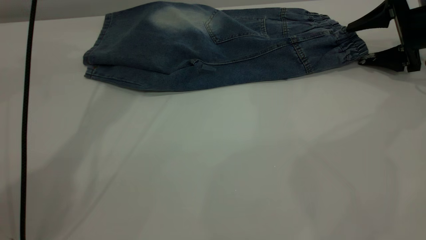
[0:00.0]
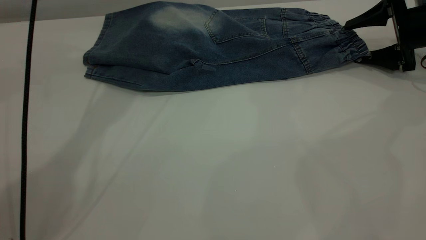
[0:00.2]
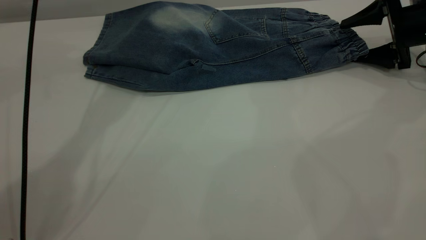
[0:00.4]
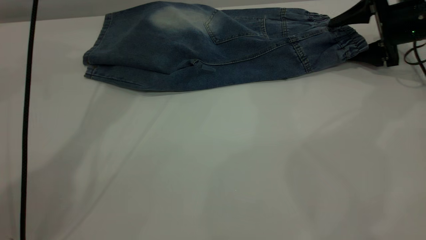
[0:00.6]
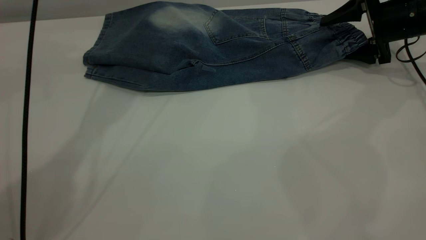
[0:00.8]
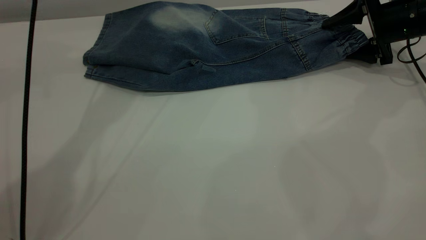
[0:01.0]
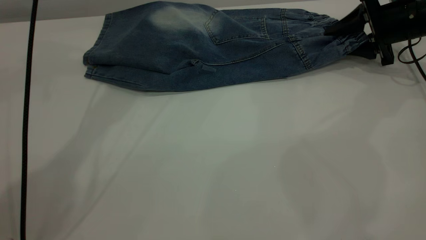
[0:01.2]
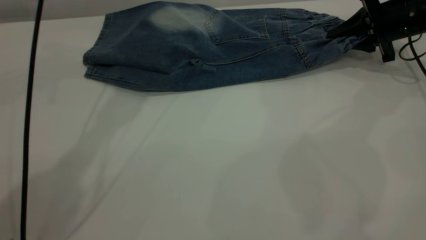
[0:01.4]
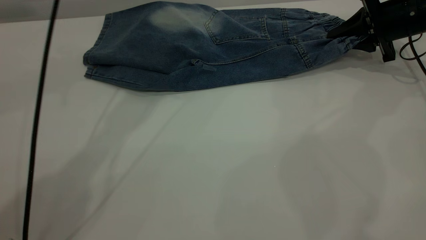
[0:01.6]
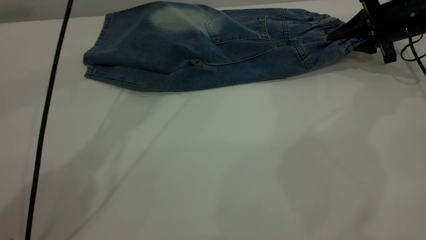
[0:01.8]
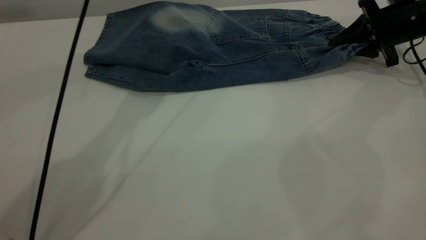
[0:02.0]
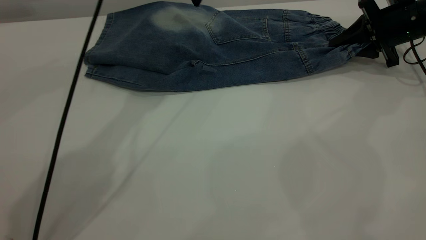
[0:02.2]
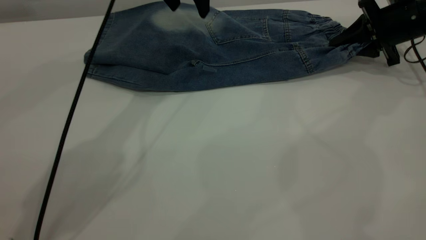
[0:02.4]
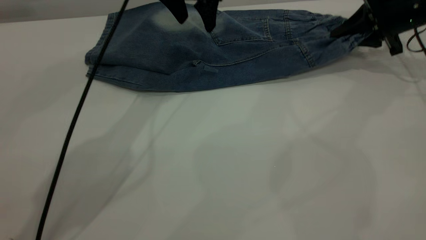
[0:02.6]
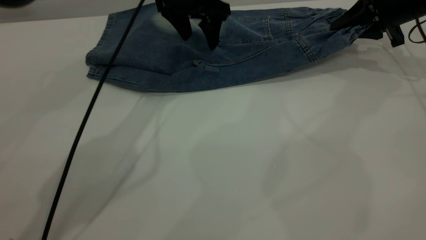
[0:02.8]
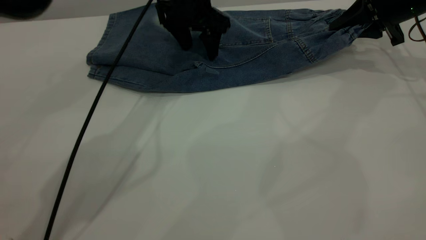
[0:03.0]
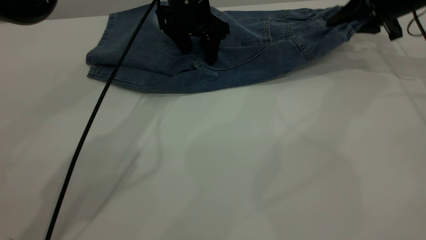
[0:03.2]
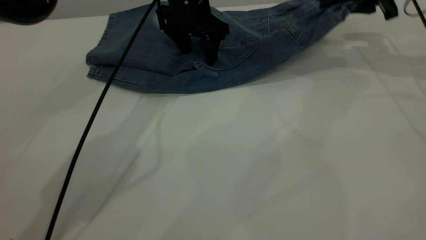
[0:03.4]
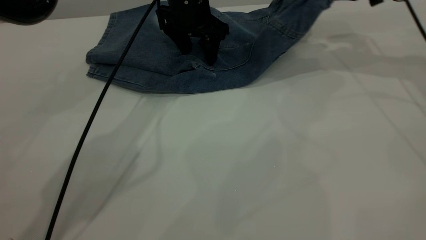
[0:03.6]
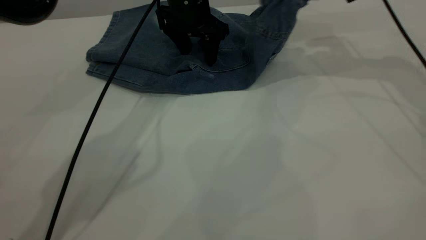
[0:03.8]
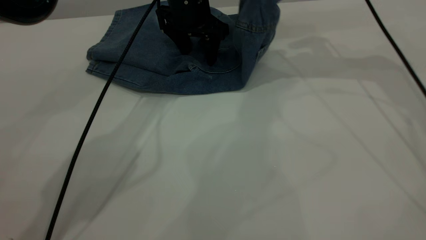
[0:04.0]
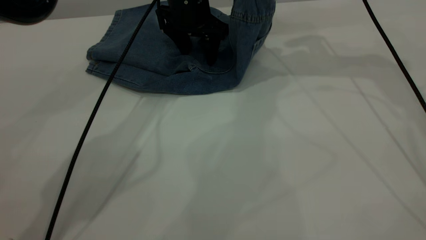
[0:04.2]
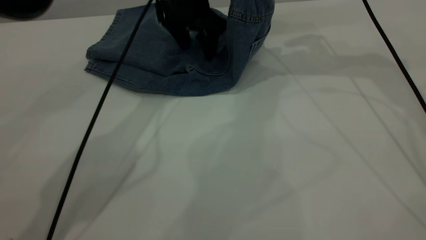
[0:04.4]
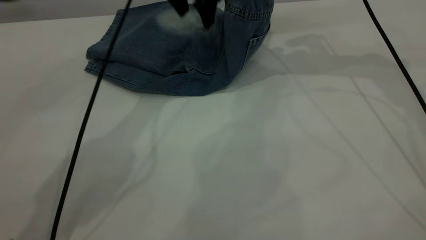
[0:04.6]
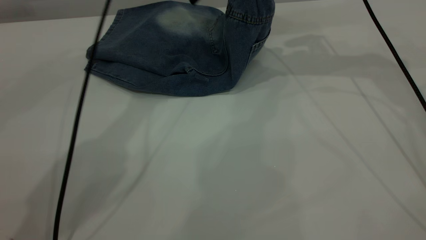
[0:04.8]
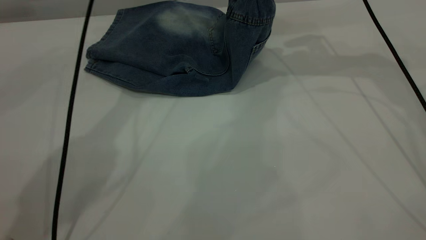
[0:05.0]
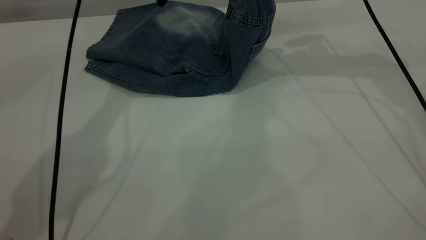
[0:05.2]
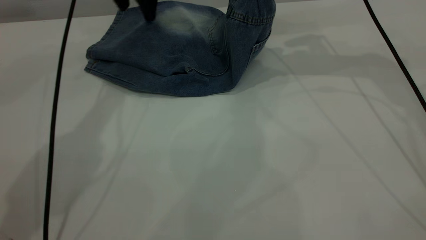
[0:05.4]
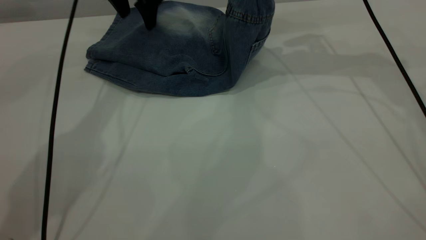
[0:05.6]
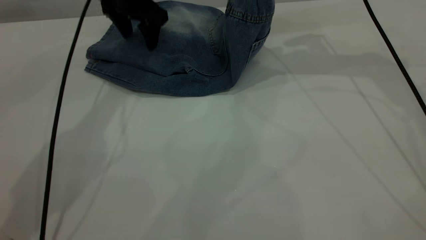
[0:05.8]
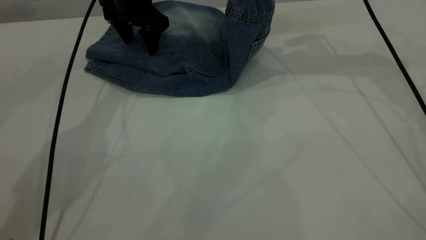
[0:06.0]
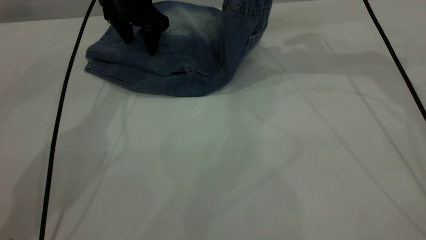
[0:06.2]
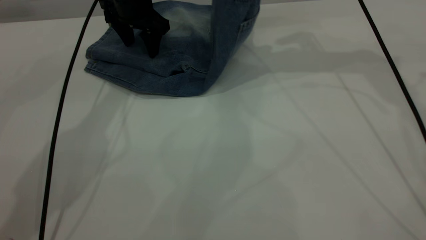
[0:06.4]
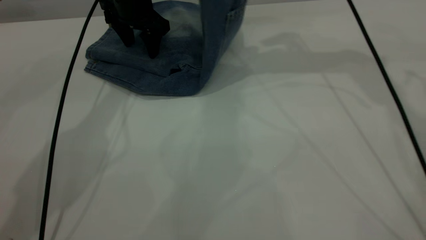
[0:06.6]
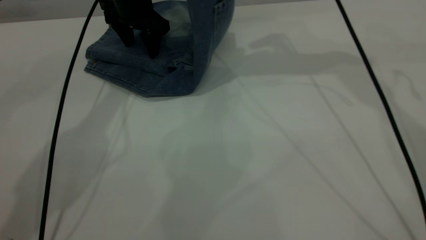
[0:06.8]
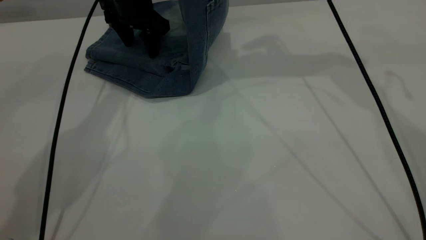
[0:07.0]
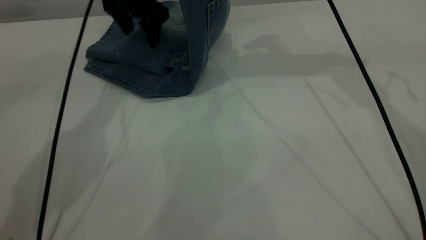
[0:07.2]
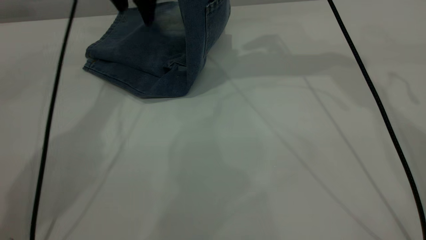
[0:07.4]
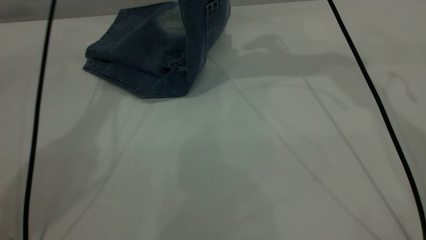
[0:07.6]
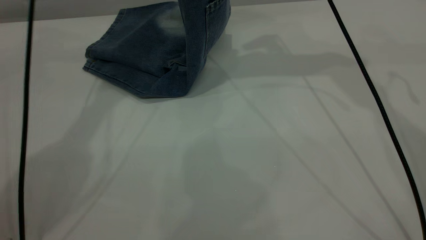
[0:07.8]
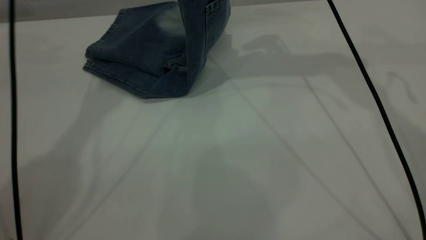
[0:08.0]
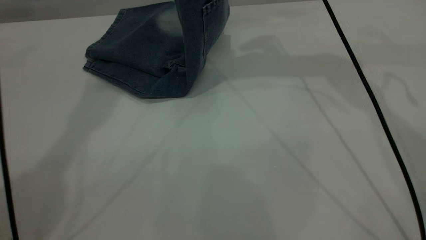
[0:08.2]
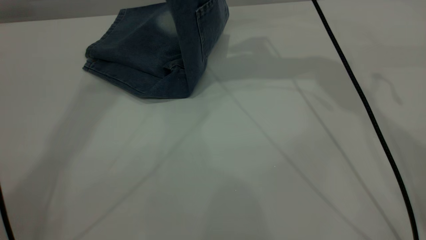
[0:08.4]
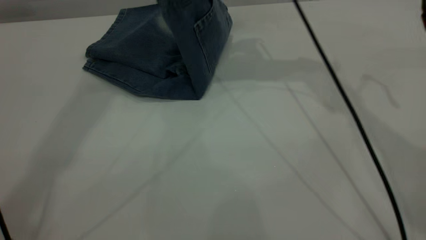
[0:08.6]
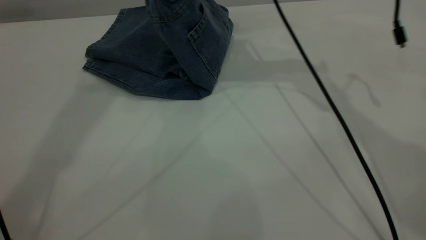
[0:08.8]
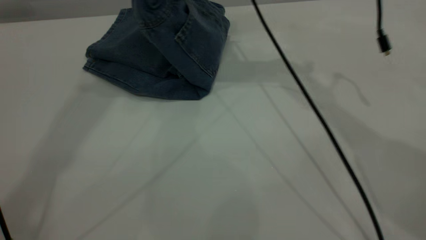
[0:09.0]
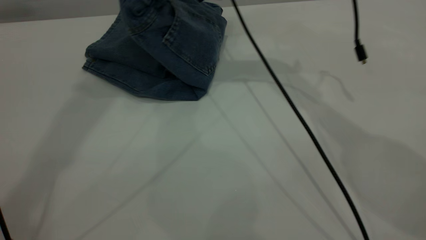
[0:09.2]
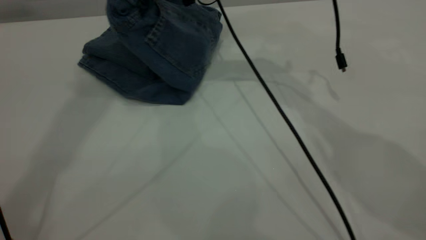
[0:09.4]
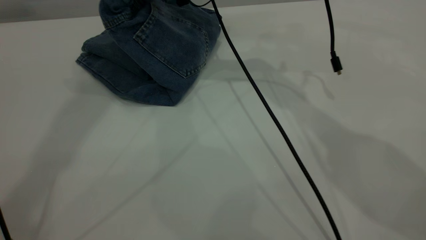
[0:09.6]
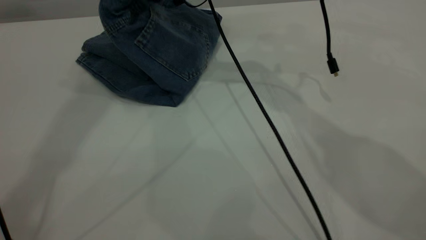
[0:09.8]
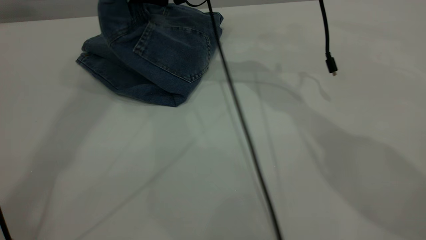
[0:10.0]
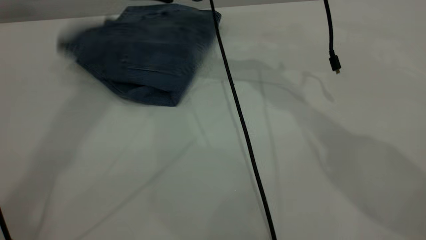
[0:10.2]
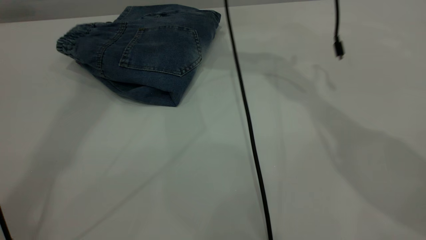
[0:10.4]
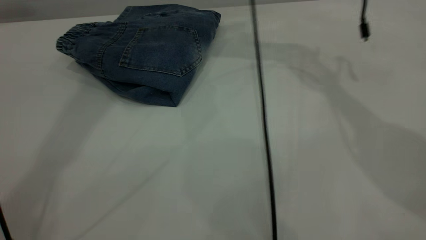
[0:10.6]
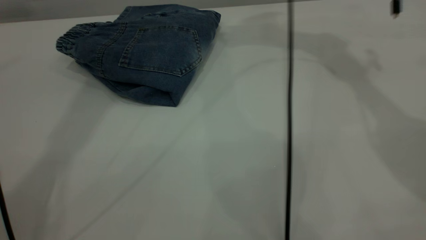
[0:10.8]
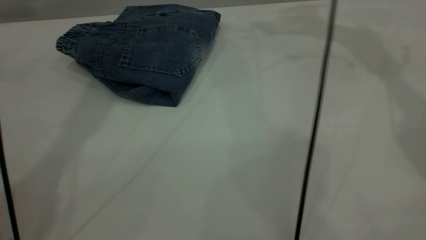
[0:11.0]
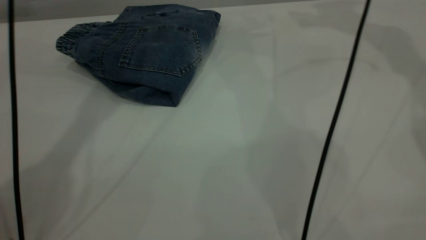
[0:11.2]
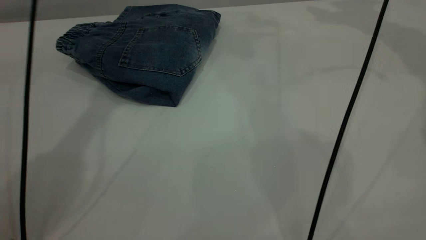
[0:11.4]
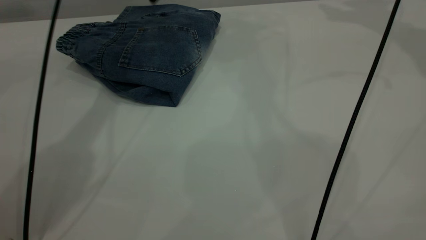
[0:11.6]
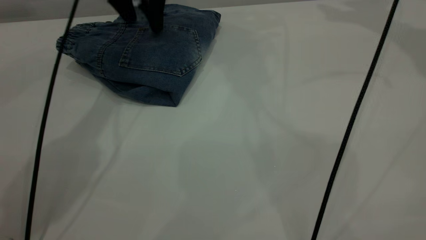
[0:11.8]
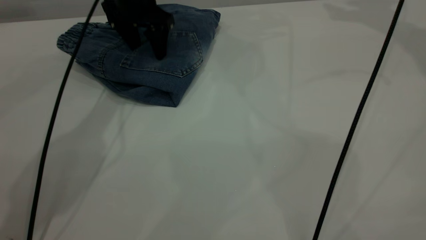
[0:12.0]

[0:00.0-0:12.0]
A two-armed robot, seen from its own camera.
Step, 0:00.0 to 0:10.6: Fold your pants from right to left.
0:00.0 to 0:01.6: The left gripper shifts by approximately 5 cm; the right gripper closes up.
0:01.6 to 0:03.0: The left gripper moves downward and to the right, some 15 cm.
0:03.0 to 0:04.4: The right gripper moves to the left and upward, roughly 15 cm.
0:04.4 to 0:06.0: The left gripper moves to the left, approximately 10 cm.
0:06.0 to 0:07.6: The right gripper moves to the left and upward, approximately 10 cm. Meanwhile the left gripper heads upward, covering about 10 cm.
0:07.6 to 0:09.0: The right gripper moves to the left and downward, roughly 10 cm, while the left gripper is displaced upward and backward by roughly 30 cm.
0:09.0 to 0:10.4: The right gripper opens its fingers.
0:10.4 to 0:12.0: The right gripper heads to the right and upward, covering approximately 35 cm, while the left gripper travels downward by some 40 cm.

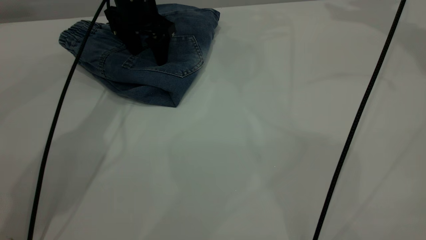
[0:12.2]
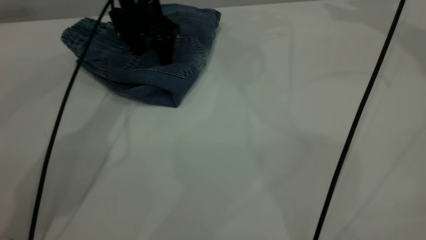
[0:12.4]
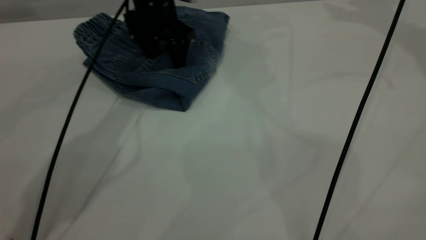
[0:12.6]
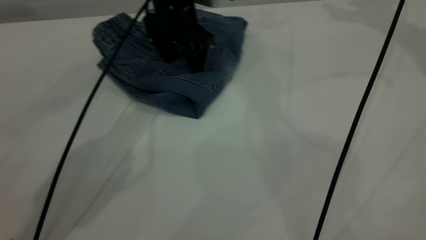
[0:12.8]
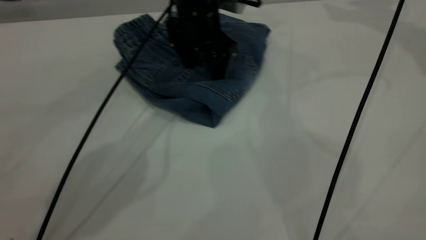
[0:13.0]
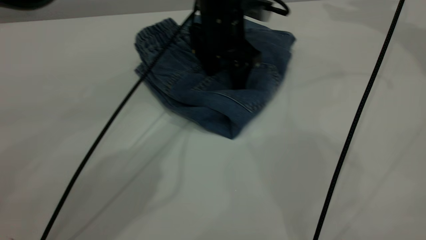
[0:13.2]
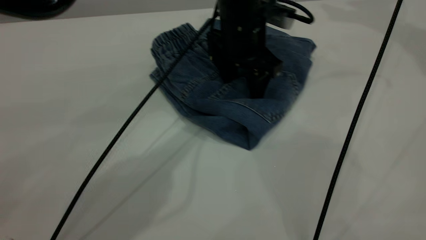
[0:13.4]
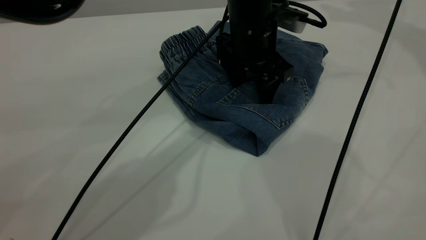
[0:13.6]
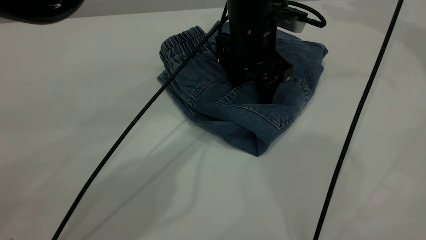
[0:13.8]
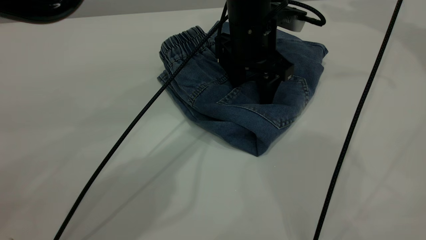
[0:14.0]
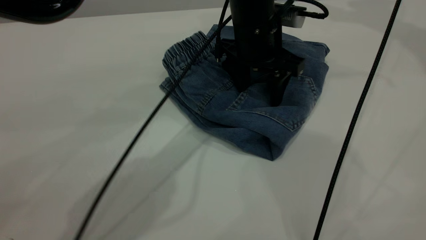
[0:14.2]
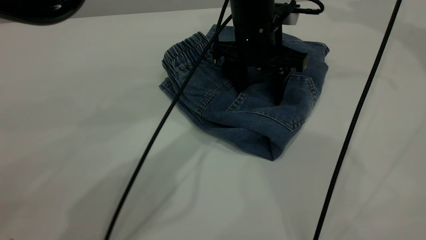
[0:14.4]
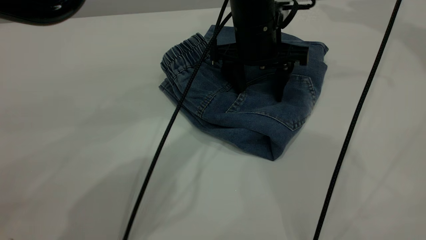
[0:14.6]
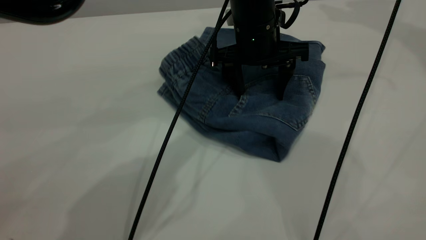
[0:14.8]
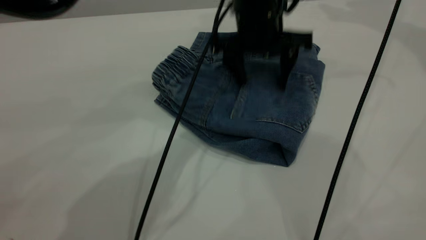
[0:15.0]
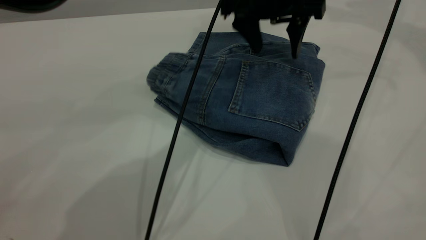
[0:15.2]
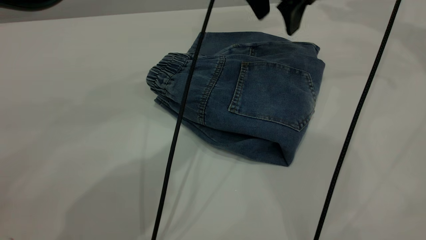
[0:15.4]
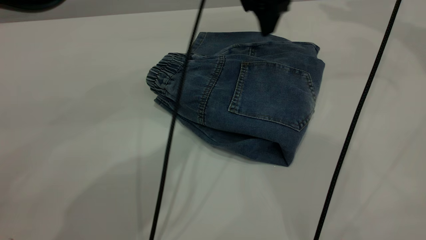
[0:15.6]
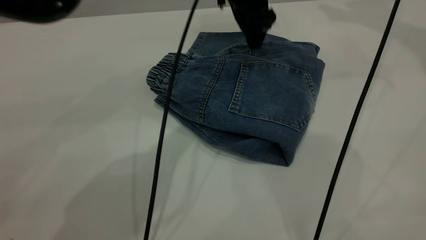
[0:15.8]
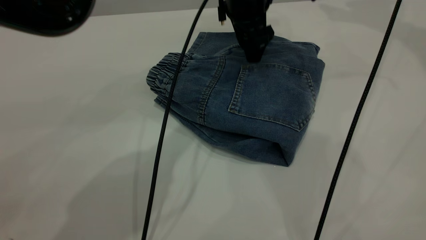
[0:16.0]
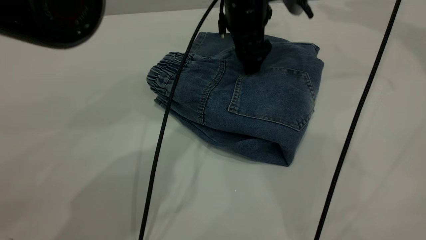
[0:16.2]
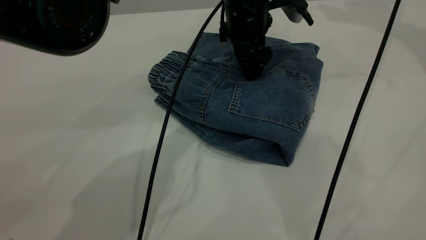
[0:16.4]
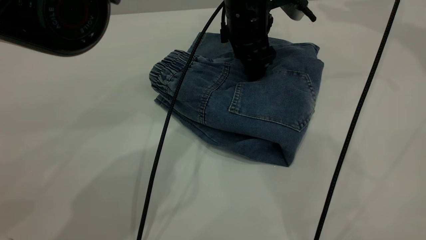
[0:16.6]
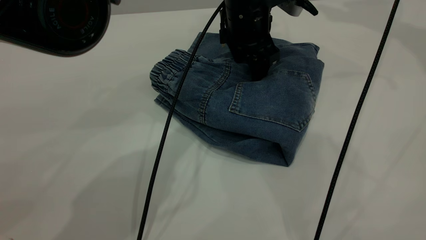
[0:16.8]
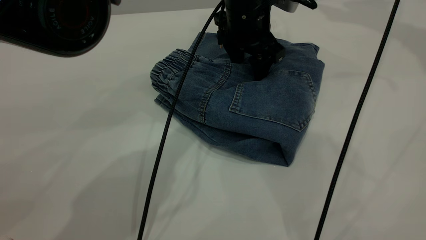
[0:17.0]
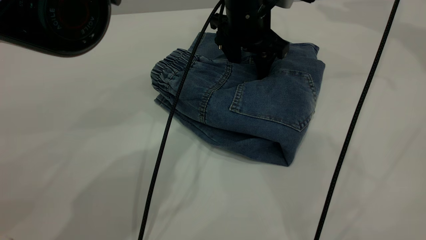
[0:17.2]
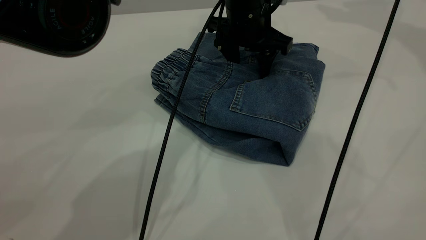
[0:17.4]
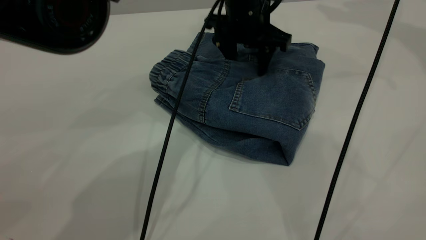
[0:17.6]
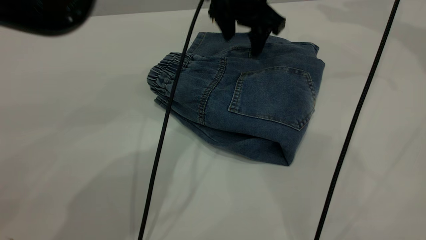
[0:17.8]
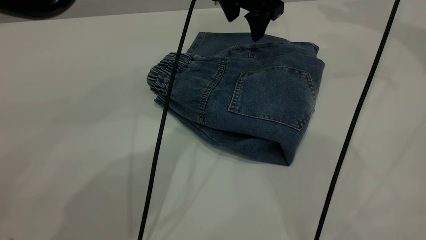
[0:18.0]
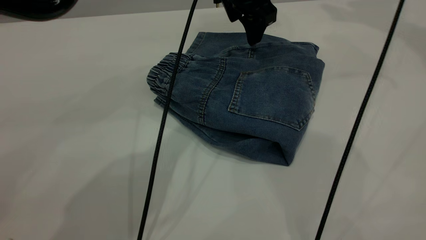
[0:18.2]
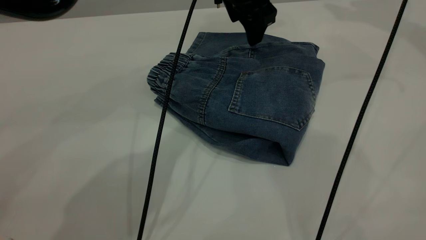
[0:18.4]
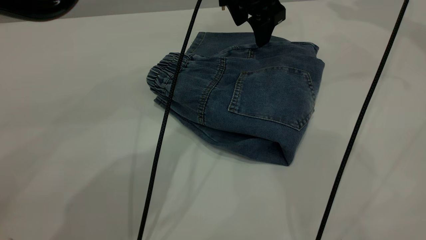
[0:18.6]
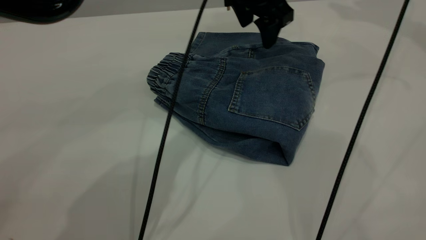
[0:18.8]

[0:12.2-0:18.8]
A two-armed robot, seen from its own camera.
0:12.2 to 0:13.8: The left gripper goes about 20 cm to the right and backward.
0:13.8 to 0:15.4: The left gripper is displaced upward by approximately 10 cm.
0:15.4 to 0:17.2: The left gripper travels downward by approximately 10 cm.
0:17.2 to 0:18.8: The left gripper is displaced upward by approximately 5 cm.
